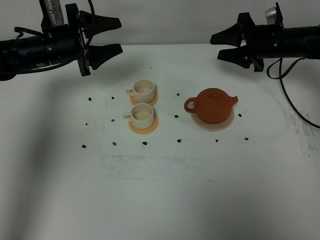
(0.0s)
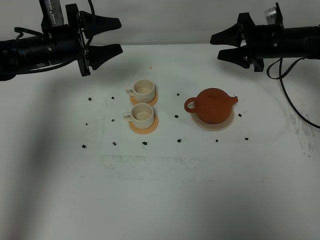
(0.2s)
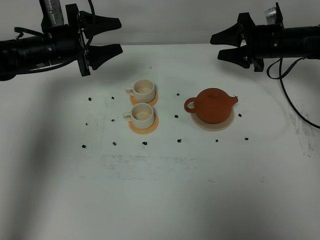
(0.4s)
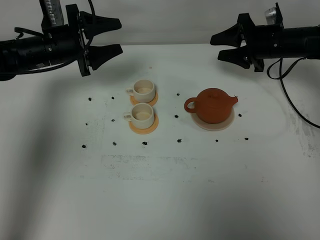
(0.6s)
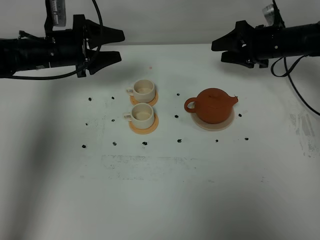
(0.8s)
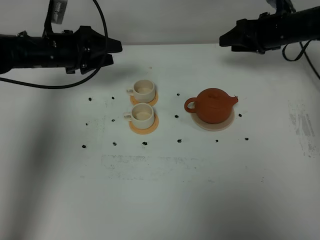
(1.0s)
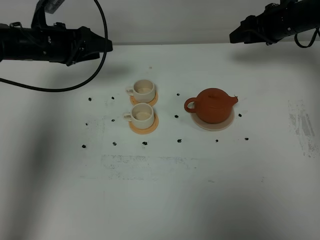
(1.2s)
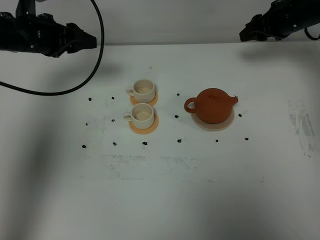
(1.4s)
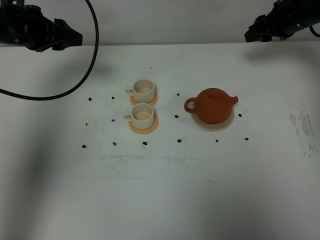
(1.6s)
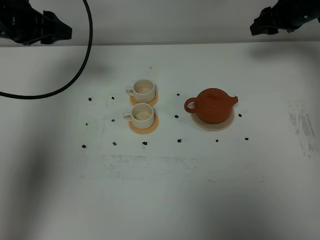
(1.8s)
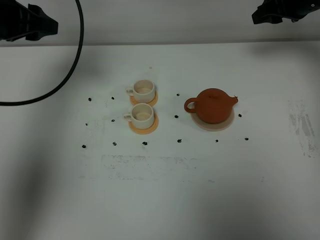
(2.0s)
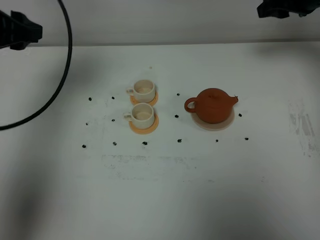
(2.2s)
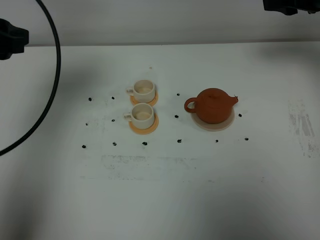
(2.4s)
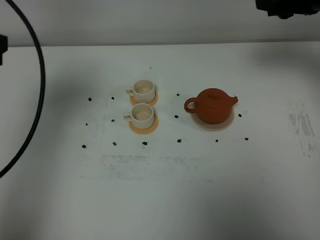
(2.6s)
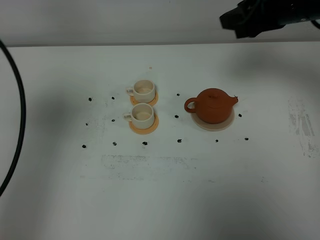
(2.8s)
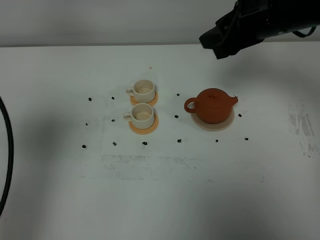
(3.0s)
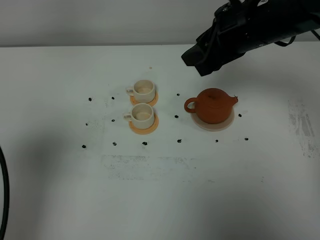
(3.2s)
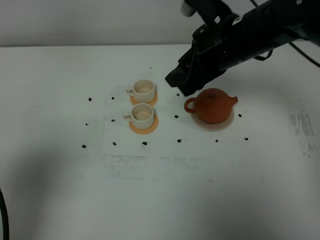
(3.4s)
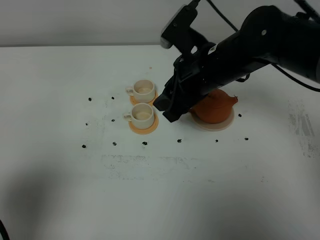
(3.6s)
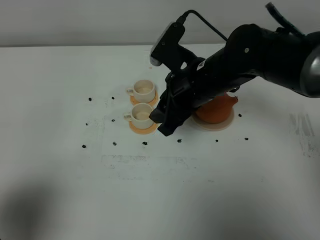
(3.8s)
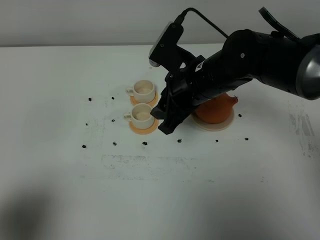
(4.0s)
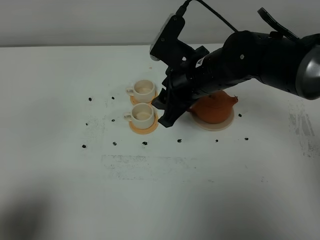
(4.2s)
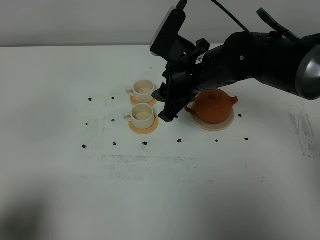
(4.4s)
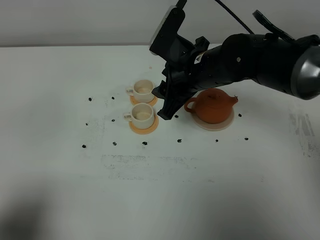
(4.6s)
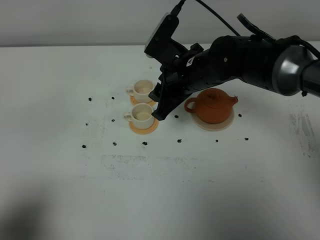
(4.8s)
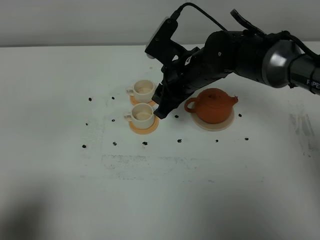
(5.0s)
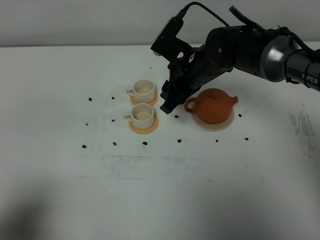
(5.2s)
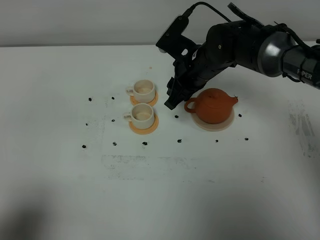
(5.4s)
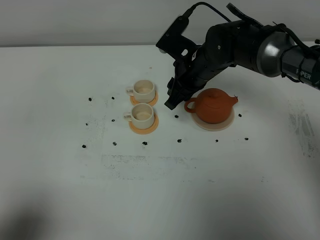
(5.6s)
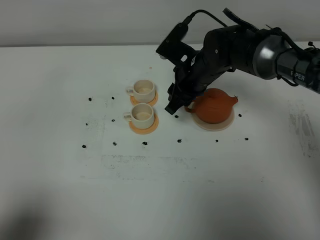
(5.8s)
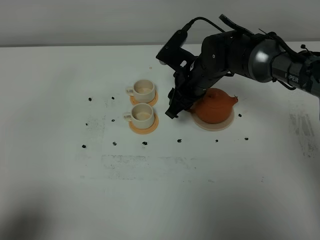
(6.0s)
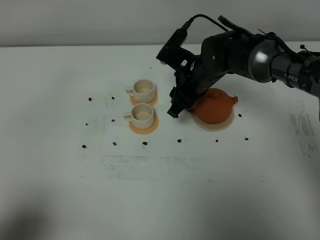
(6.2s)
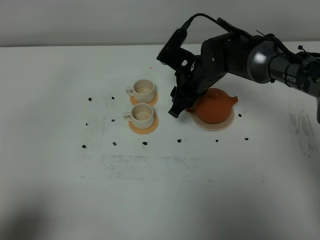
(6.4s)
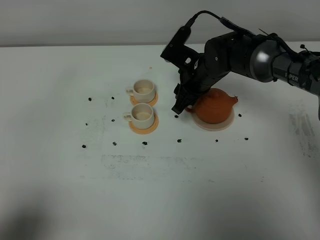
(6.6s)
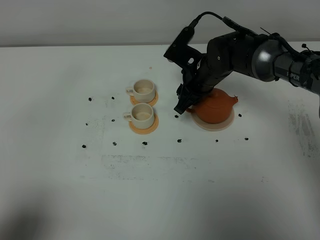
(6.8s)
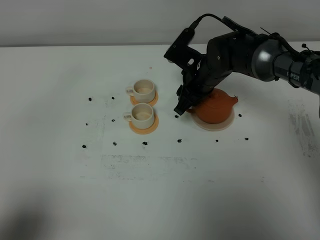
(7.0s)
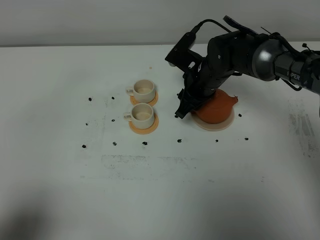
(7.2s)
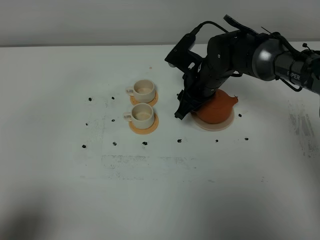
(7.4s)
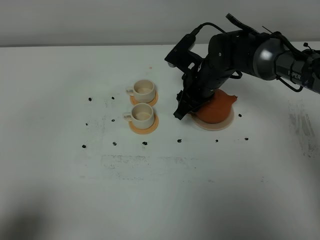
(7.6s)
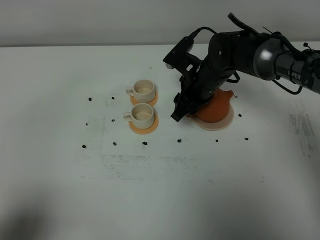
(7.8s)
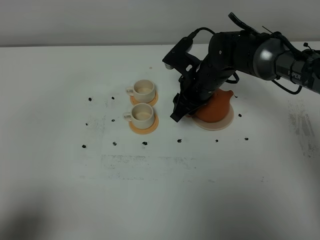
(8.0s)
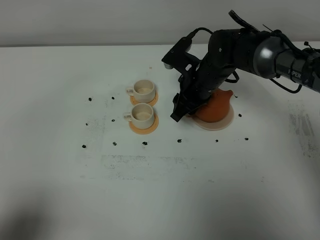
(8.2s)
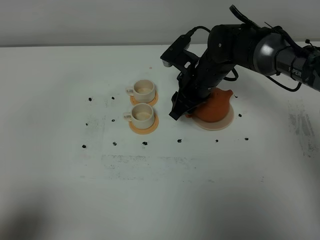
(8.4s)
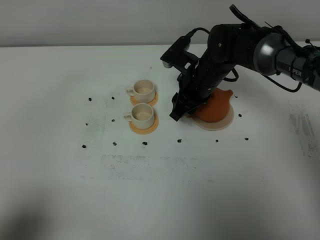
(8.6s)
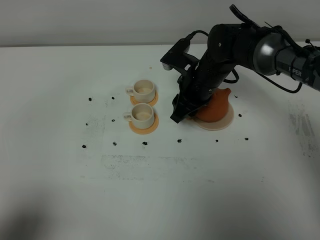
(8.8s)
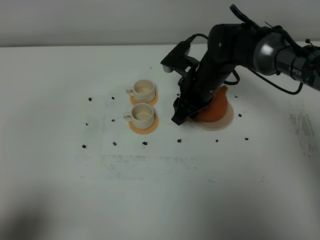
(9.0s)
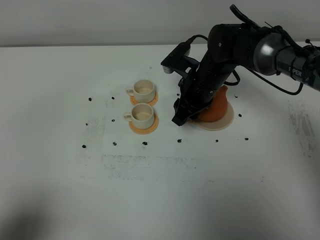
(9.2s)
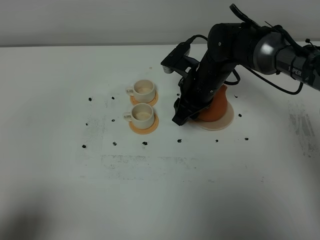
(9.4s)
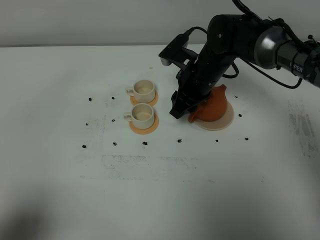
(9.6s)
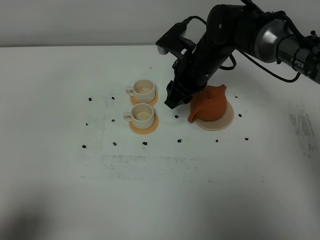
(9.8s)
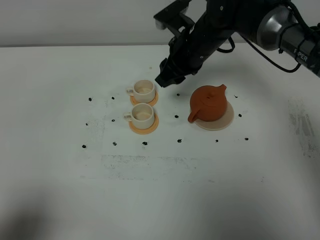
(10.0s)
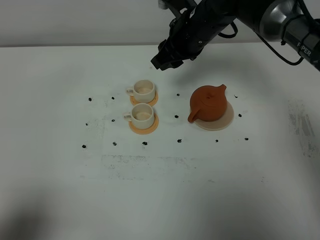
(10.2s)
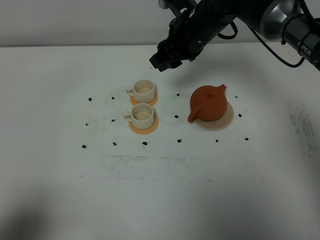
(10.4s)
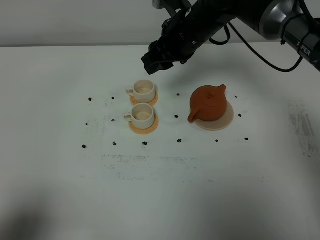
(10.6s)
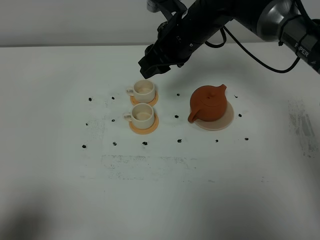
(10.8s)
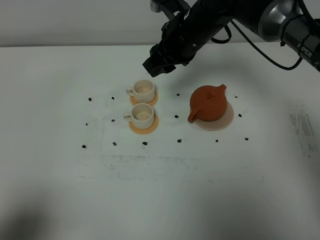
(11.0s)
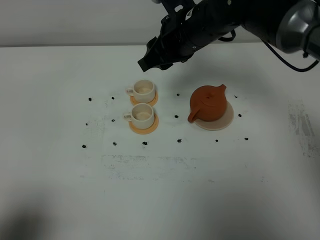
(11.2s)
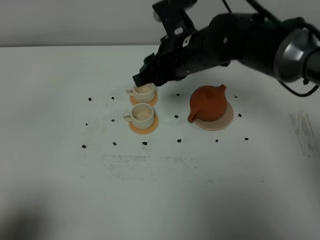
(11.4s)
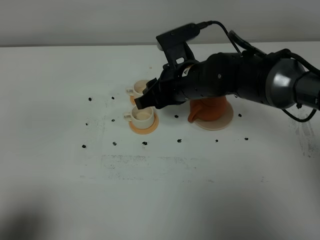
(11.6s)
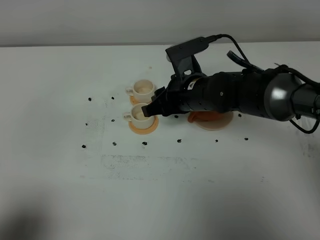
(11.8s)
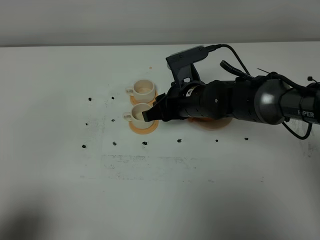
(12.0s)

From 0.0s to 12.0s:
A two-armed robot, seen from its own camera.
Task of the whole recording: grasp the brown teapot and pour the tea into the two white teacups one by one, put the brown teapot back in its original place.
From 0.0s to 1.6s: The left gripper moves upward, roughly 10 cm. The right gripper shifts by about 5 cm.
From 1.6s to 3.0s: The right gripper is displaced backward, upward and to the left by about 20 cm. The left gripper travels backward by approximately 25 cm.
From 3.0s to 4.4s: The left gripper travels backward and downward by some 15 cm, while the right gripper travels to the left and downward by approximately 15 cm.
From 4.4s to 6.0s: The left gripper closes. Meanwhile the right gripper heads downward and forward, covering some 10 cm.
From 6.0s to 9.0s: The grippers stay close to where they were, moving slightly.
From 9.0s to 10.4s: The right gripper is displaced upward by approximately 10 cm.
From 10.4s to 12.0s: The right gripper is displaced downward and backward by some 15 cm.

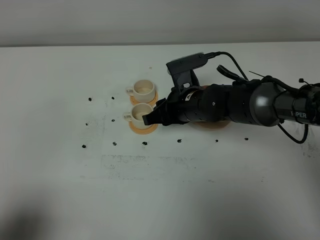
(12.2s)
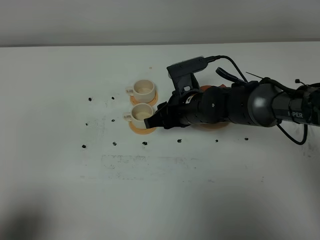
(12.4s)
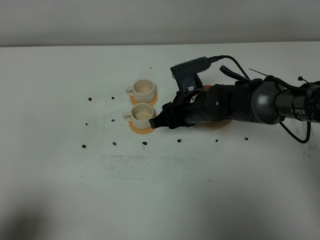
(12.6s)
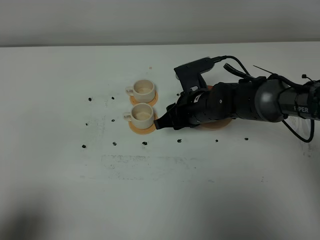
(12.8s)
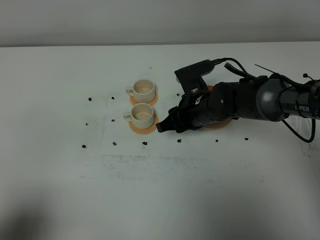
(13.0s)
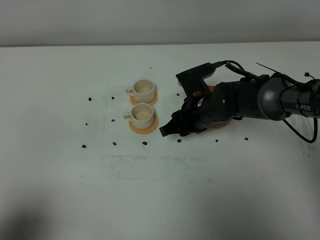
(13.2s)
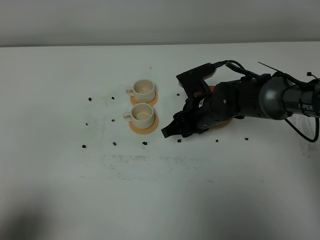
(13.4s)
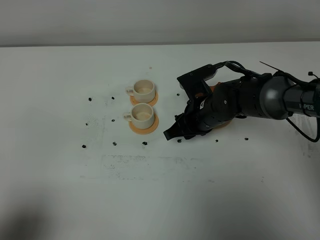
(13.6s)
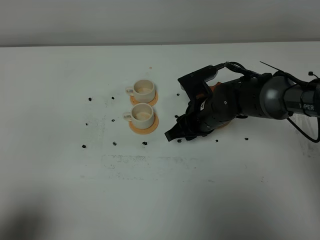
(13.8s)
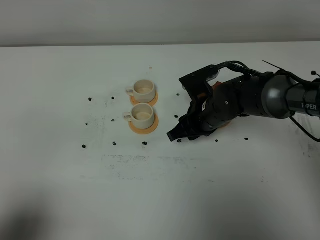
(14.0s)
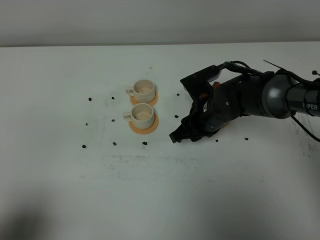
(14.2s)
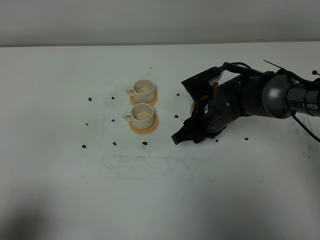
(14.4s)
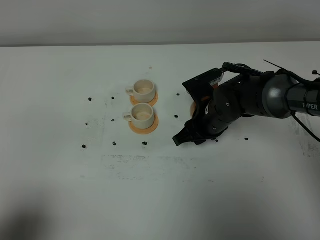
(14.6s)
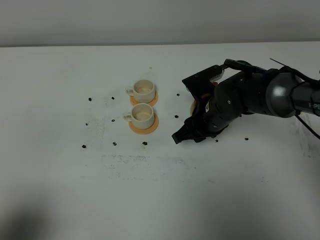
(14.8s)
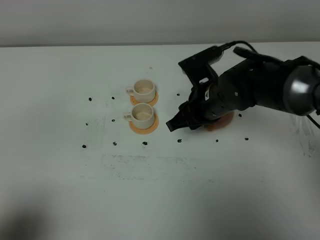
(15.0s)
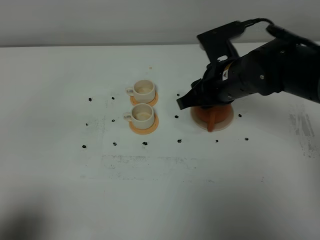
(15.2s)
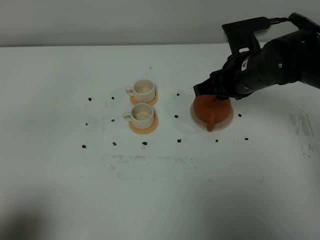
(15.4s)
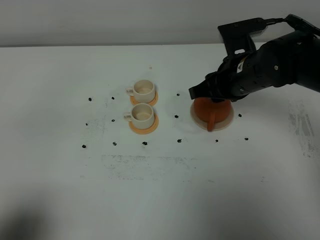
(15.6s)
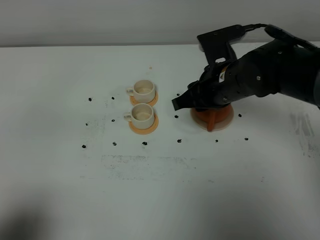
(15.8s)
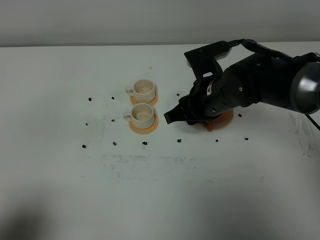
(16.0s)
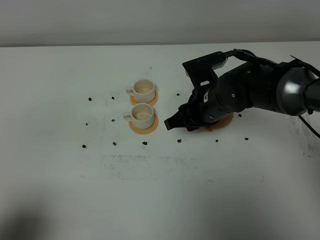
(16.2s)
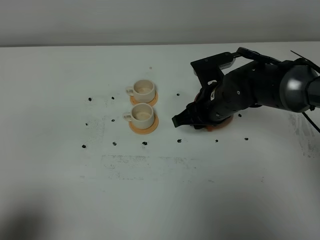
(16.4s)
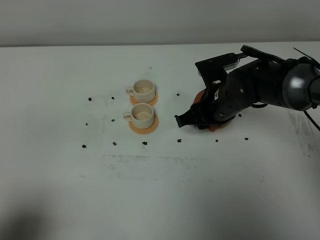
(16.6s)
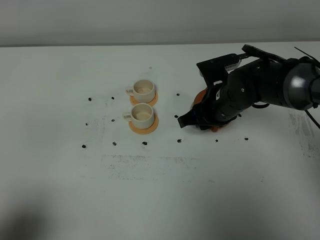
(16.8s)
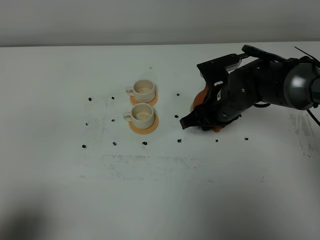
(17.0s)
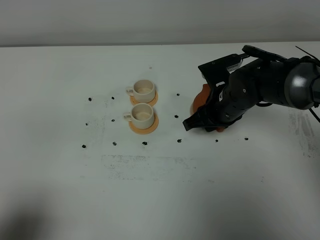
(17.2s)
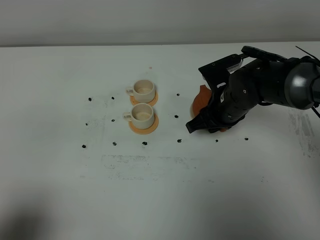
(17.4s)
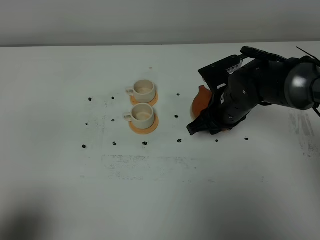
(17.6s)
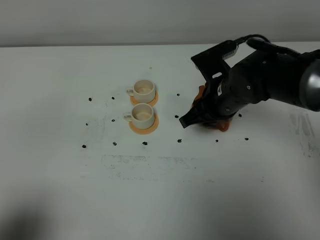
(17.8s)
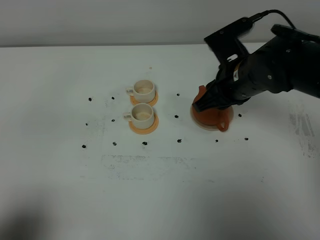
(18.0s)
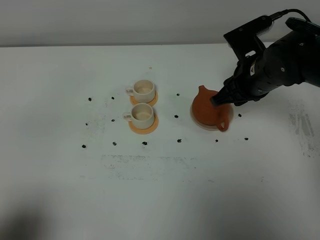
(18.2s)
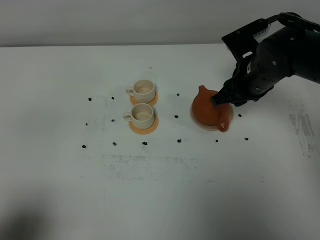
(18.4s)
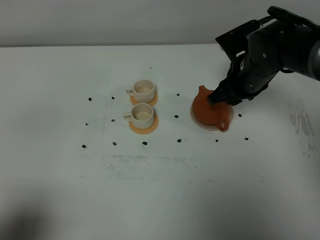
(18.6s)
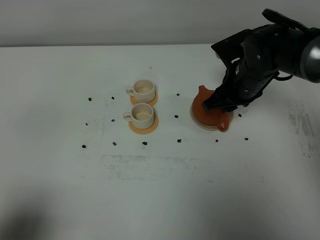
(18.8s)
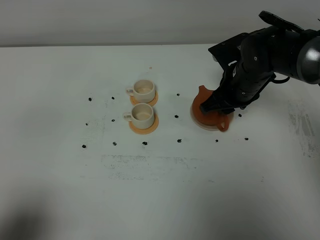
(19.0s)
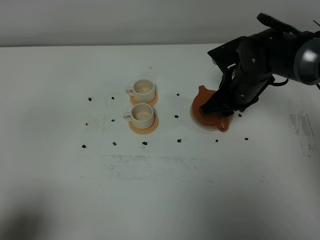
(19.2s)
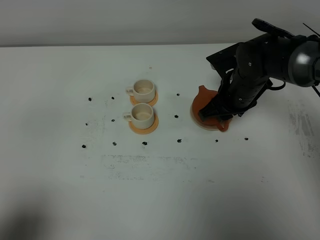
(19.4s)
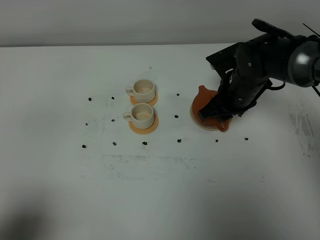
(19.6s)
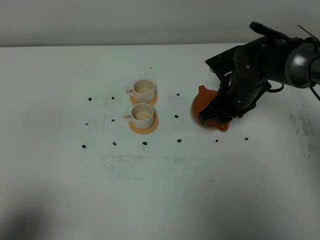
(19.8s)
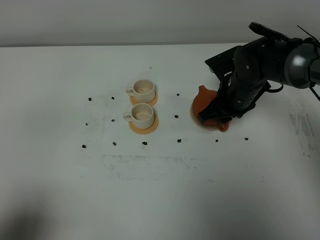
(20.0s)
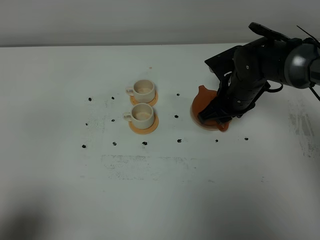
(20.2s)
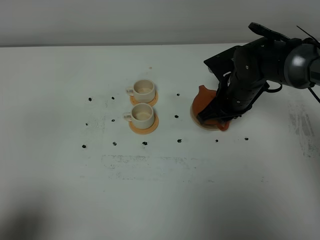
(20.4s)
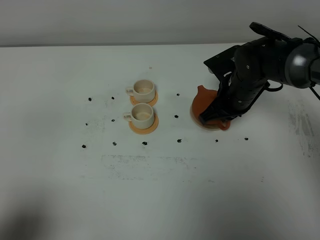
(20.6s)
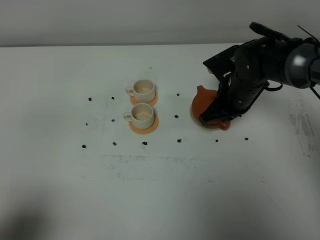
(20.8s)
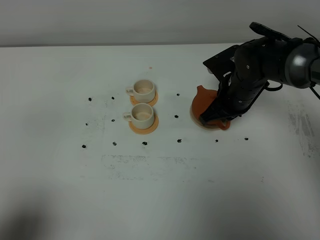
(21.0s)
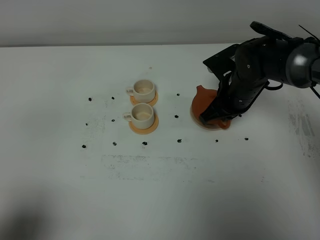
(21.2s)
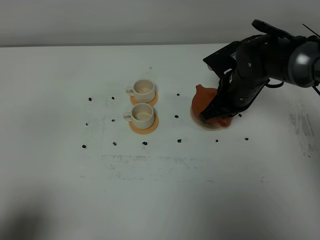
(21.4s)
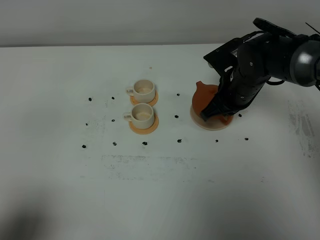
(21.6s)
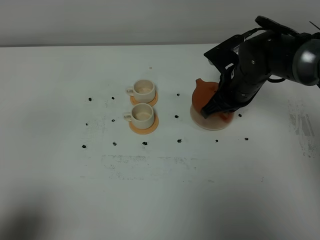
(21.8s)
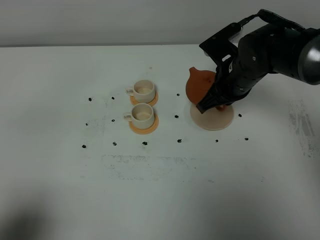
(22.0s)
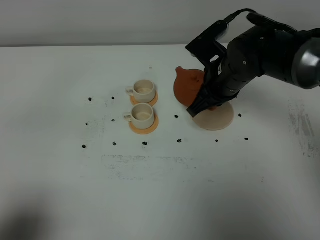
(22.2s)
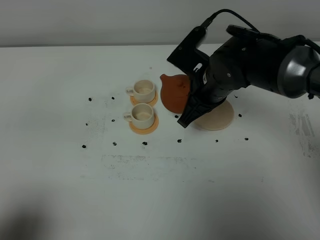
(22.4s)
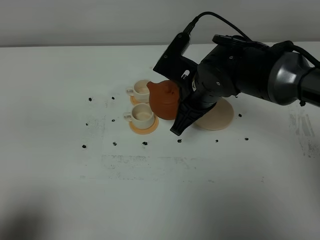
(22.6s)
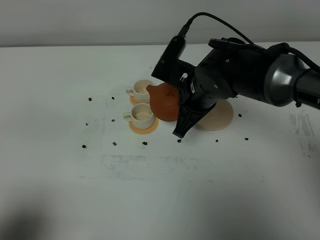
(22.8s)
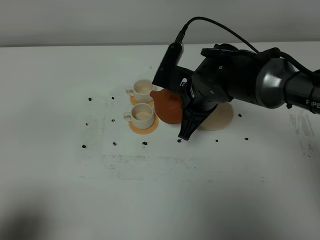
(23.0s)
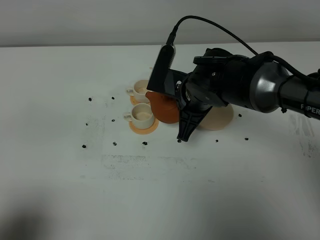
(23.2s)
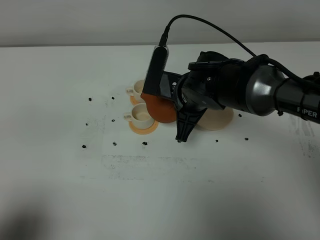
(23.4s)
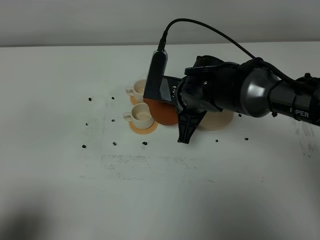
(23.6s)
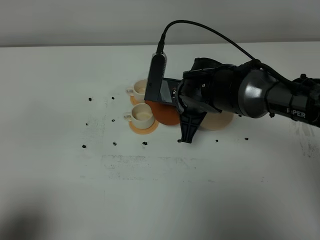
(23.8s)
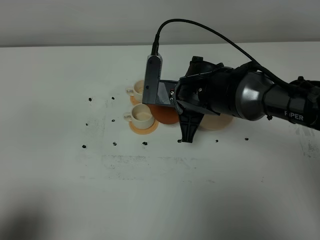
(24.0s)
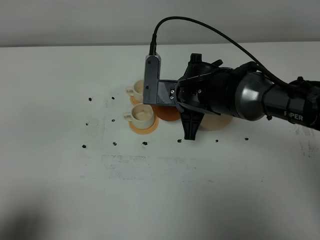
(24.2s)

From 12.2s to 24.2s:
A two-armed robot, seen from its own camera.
Task of the whole recording: grasp the brown teapot and pour the tea into the two white teacups one by one, put the brown teapot back in its original place.
Step, from 12.2s to 21.4s: Pick up the teapot with the right gripper.
From 12.2s to 13.8s: The grippers stay close to where they were, moving slightly.
From 13.8s to 15.2s: The right gripper shifts about 10 cm upward.
From 15.2s to 16.6s: The right gripper moves downward, about 5 cm.
From 16.6s to 18.2s: The right gripper shifts some 10 cm upward and to the right.
From 18.2s to 19.8s: The right gripper travels downward by about 5 cm.
From 19.8s to 21.2s: The right gripper closes its fingers.
From 21.2s to 22.6s: The right gripper shifts roughly 10 cm to the left, backward and upward.
